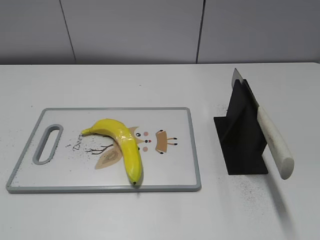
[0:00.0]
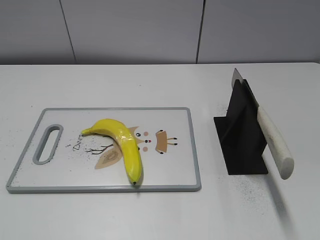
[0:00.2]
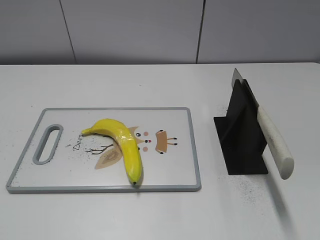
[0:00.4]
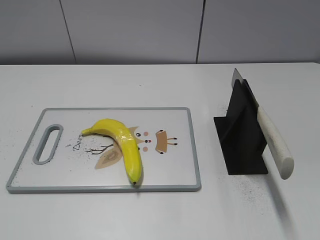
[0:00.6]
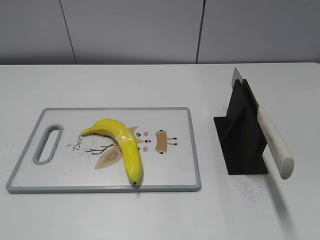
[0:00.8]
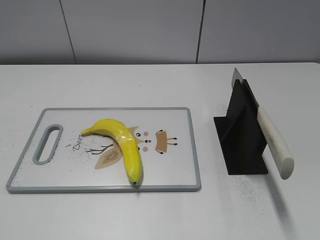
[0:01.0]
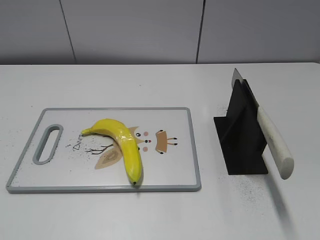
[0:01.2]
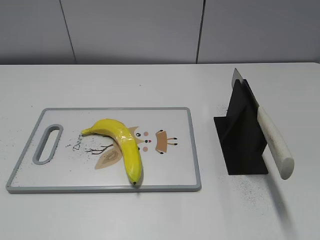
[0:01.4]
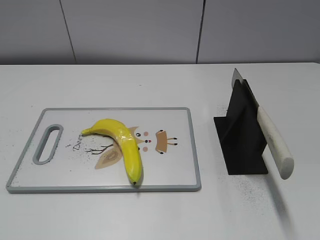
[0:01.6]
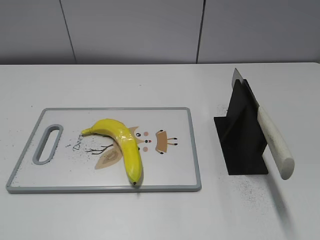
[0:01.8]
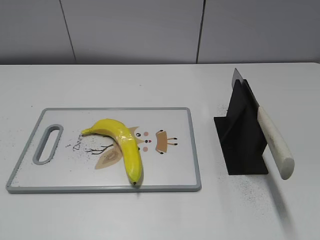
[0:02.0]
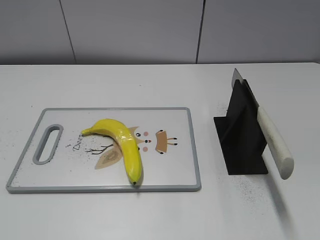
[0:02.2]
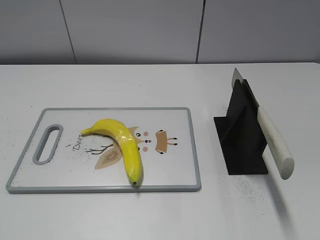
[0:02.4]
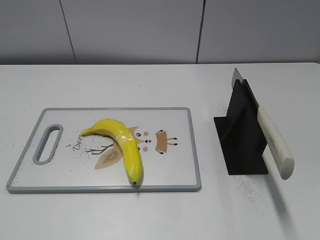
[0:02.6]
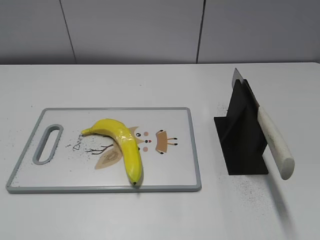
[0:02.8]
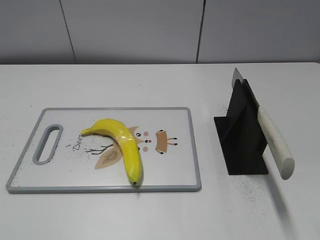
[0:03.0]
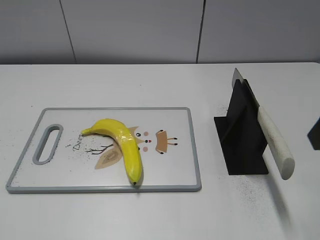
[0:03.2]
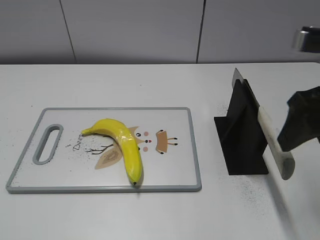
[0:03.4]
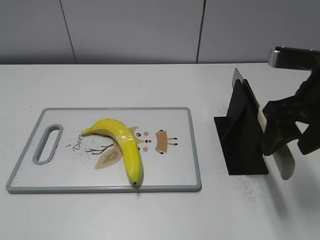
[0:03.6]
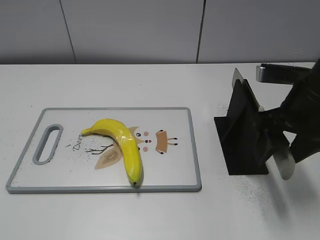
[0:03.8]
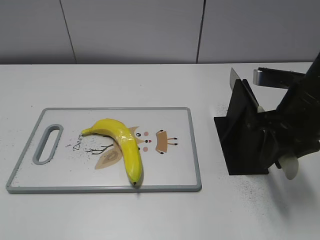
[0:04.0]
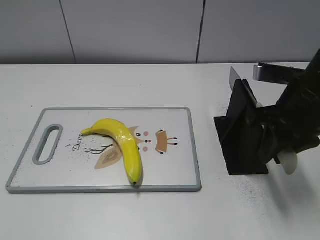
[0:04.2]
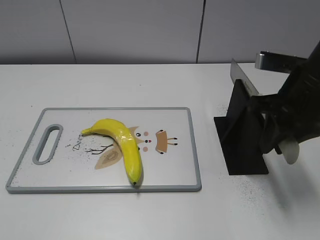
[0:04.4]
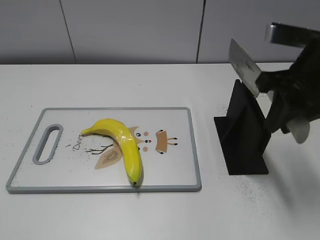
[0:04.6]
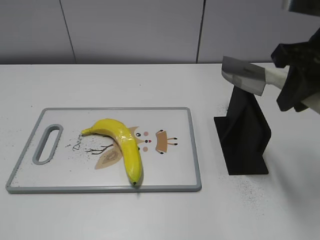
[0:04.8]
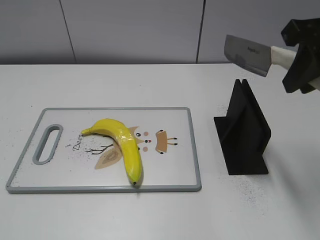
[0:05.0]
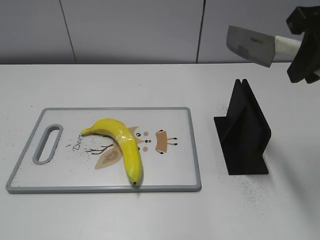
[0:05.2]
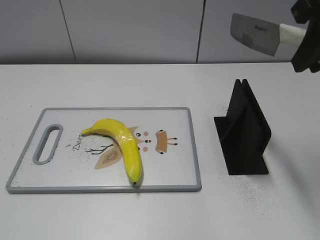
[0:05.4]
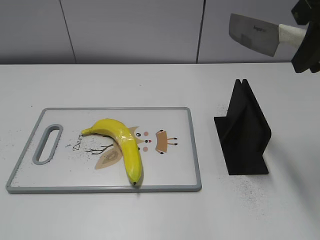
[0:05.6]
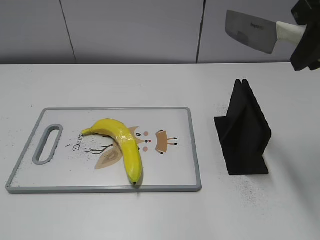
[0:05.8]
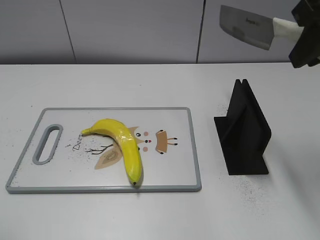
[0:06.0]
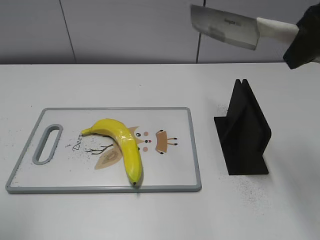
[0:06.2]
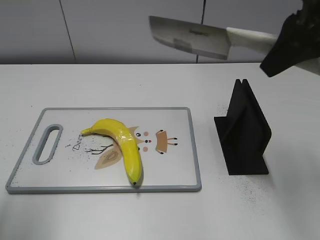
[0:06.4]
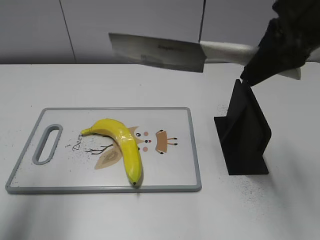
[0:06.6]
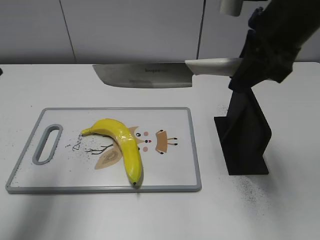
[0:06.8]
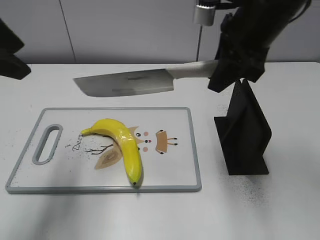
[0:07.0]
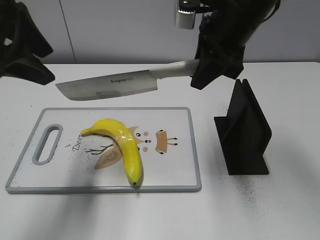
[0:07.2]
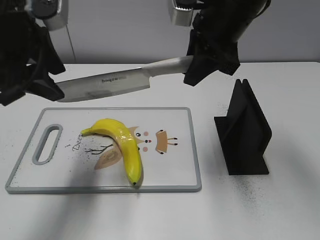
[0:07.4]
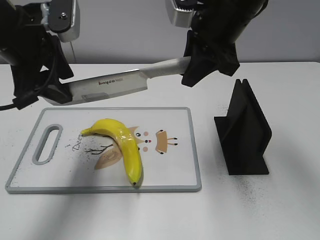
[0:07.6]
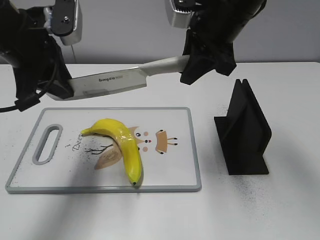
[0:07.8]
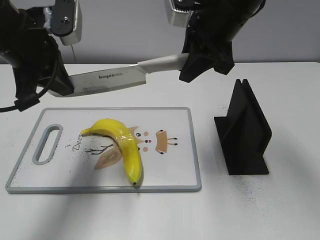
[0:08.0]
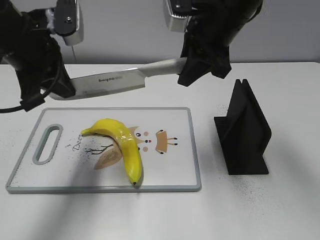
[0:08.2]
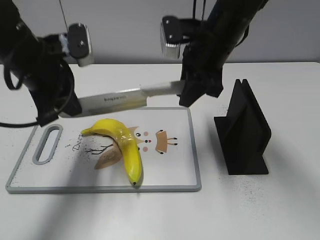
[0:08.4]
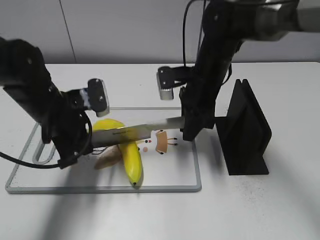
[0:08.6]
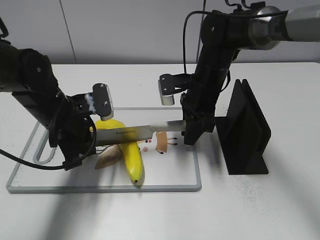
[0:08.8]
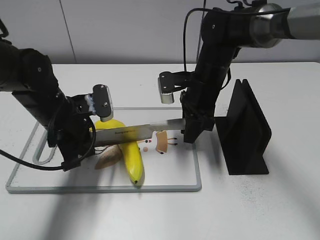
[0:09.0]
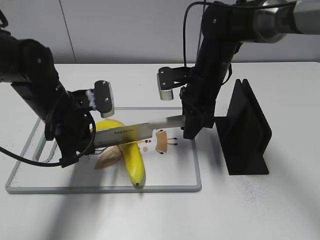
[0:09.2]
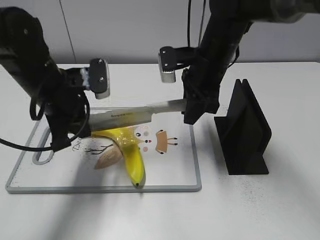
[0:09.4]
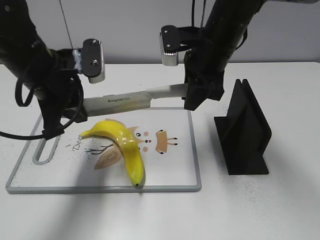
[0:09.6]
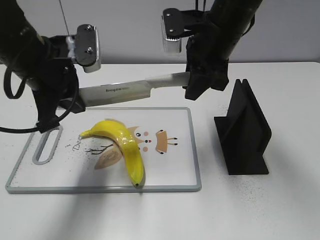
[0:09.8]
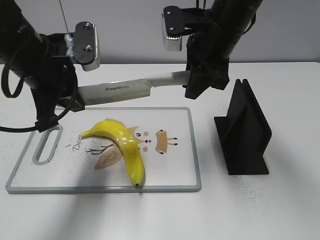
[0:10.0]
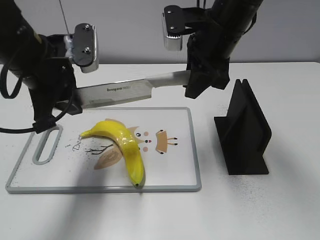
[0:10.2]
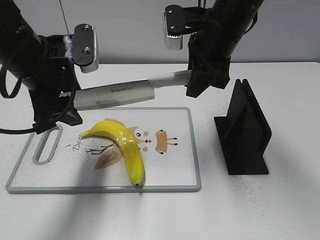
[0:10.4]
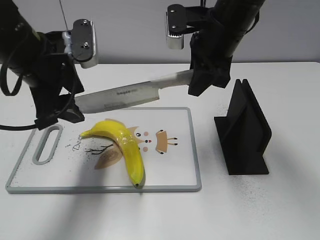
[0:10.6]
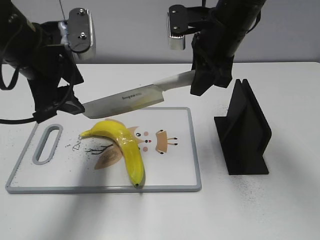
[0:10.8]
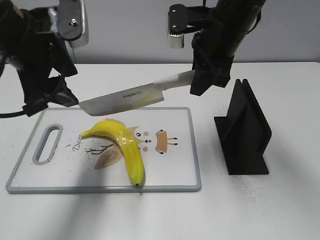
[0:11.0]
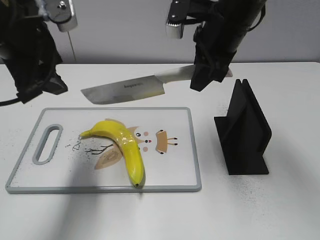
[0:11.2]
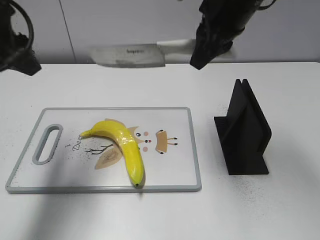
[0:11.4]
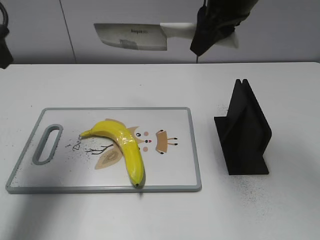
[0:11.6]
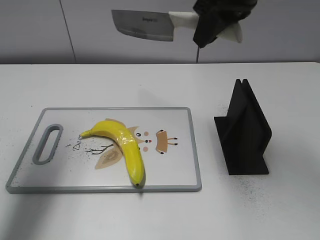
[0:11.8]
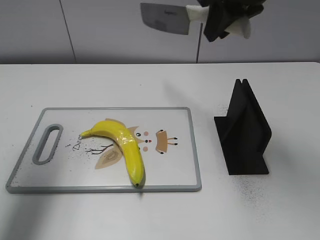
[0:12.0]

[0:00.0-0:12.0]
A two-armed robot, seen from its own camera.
Task of the whole recording: cut plastic banana.
Step, 0:00.0 to 0:05.0: Grab the knife handle with your right hand.
Step, 0:05.2 to 0:10.0: Lift the knife with your right hand.
Step, 0:10.4 to 0:11.2: Cut the banana with your right hand.
0:03.0 to 0:04.4: The right gripper travels forward, downward and to the left by approximately 15 cm, and closes up.
0:04.4 to 0:06.0: The right gripper goes about 15 cm upward.
0:06.0 to 0:07.6: The right gripper moves to the left, forward and downward, about 15 cm. Meanwhile the left gripper goes some 25 cm forward and to the right.
0:07.6 to 0:09.0: Both grippers travel together downward, some 15 cm. The left gripper closes its fingers.
0:09.0 to 0:10.4: The two grippers go roughly 10 cm upward. The left gripper opens up.
0:10.4 to 0:12.0: The right gripper moves upward, roughly 10 cm; the left gripper heads upward and to the left, covering about 15 cm.

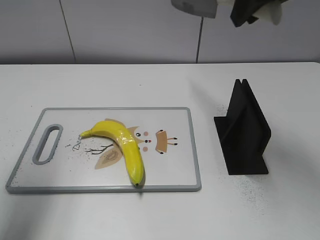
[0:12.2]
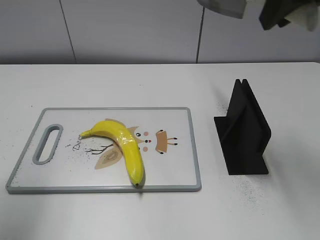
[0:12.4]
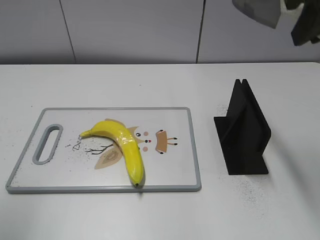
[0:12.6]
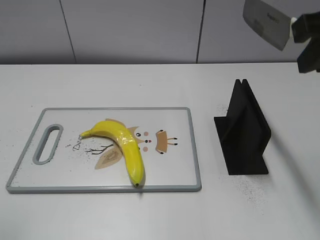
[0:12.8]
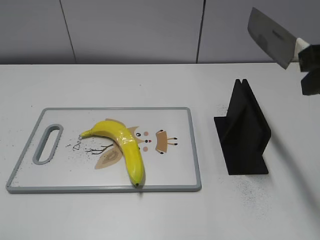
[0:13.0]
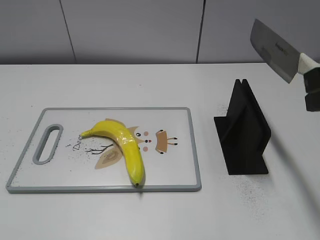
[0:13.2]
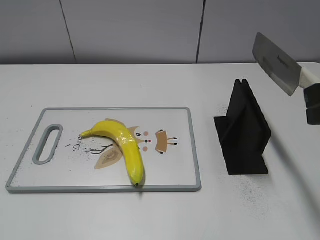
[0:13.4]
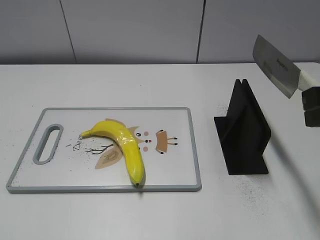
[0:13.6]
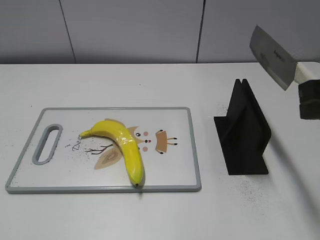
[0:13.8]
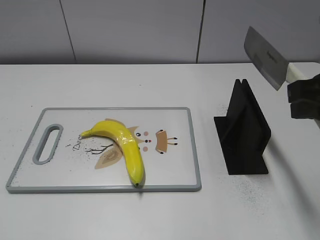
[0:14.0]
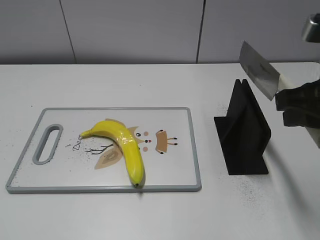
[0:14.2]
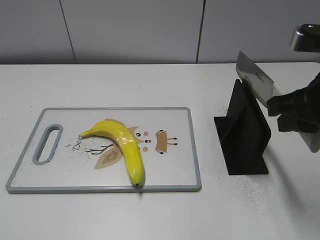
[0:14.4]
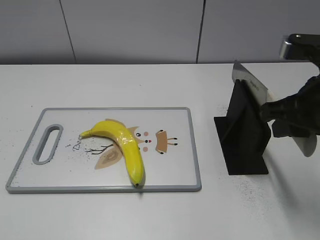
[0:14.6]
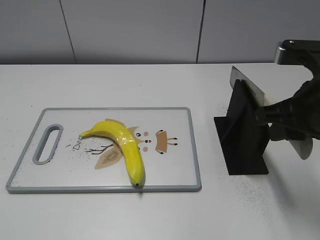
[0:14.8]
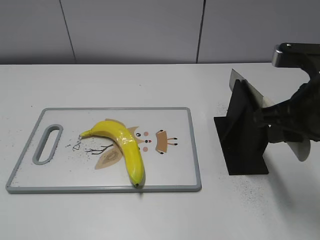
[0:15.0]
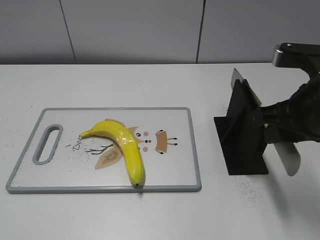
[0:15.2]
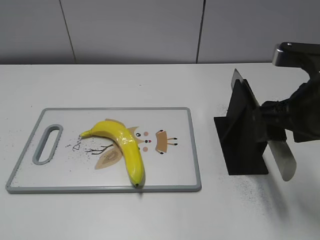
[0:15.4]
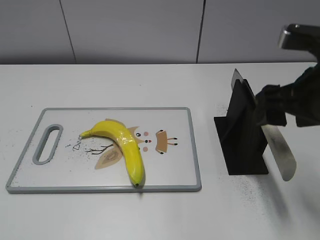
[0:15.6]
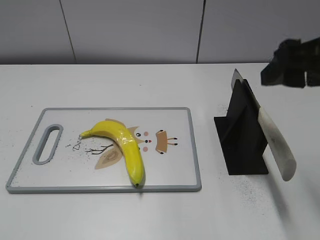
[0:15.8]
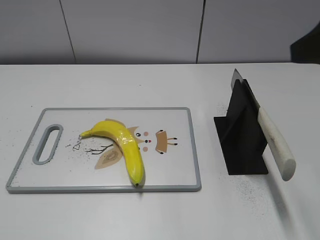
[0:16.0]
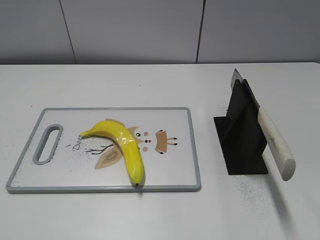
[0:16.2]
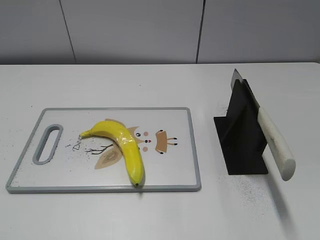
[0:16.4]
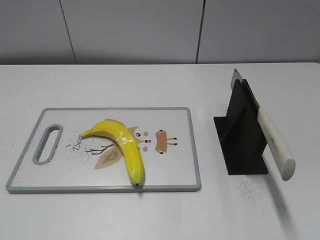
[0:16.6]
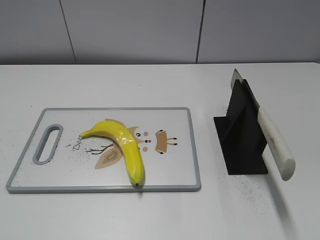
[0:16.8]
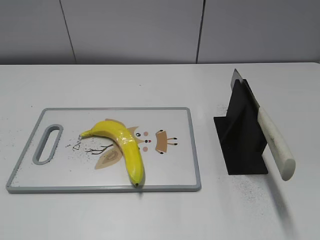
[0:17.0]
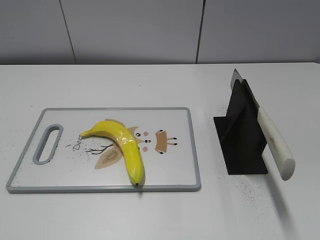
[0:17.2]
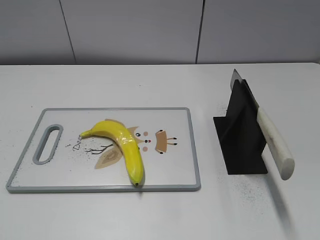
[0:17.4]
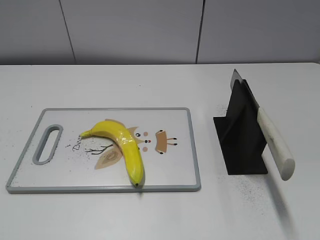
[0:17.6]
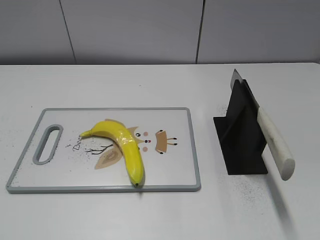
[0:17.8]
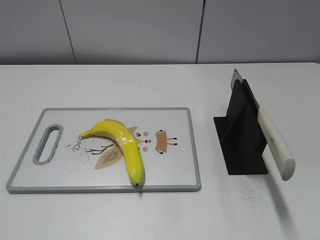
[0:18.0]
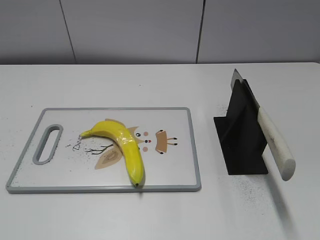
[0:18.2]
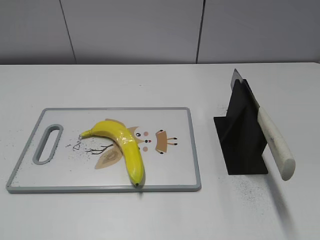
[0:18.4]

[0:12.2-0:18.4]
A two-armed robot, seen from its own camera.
Task of the whole recording: cut plastic banana.
Step, 0:12.8 to 0:18.4: Place the knife on the storage rack with your right hand.
0:12.2 to 0:13.8: The right gripper travels backward, downward and to the right by approximately 20 cm; the left gripper heads backward, covering roughly 25 cm.
0:13.8 to 0:15.4: The right gripper goes roughly 5 cm downward, and opens.
0:15.4 to 0:16.8: The right gripper heads backward and to the right, covering about 20 cm.

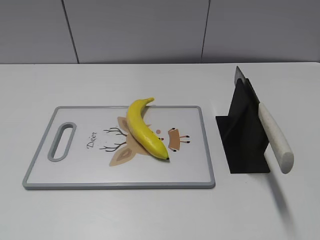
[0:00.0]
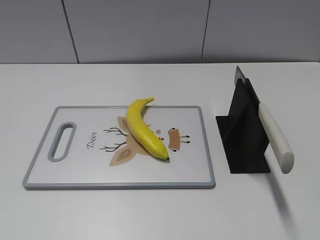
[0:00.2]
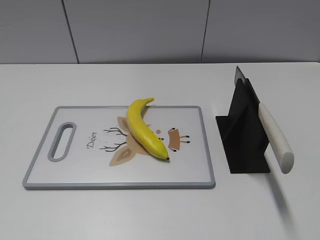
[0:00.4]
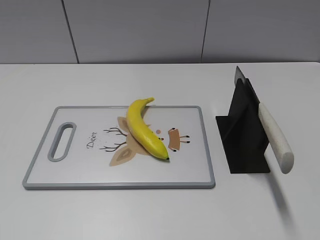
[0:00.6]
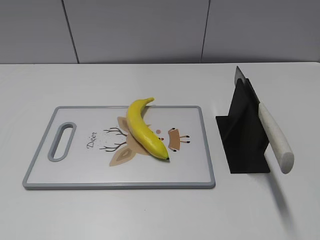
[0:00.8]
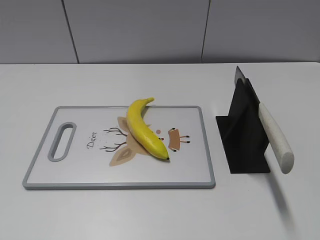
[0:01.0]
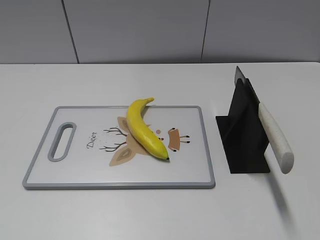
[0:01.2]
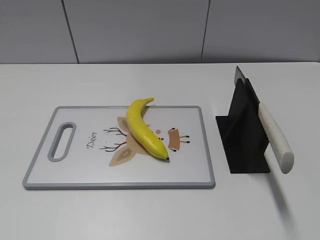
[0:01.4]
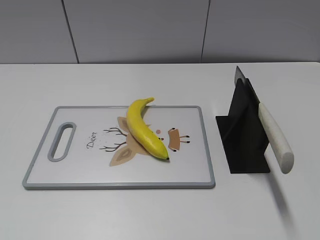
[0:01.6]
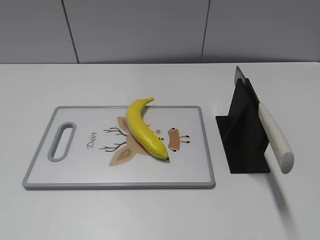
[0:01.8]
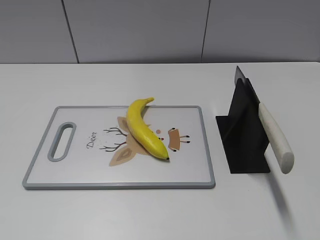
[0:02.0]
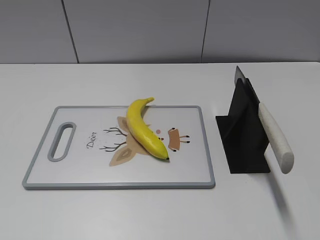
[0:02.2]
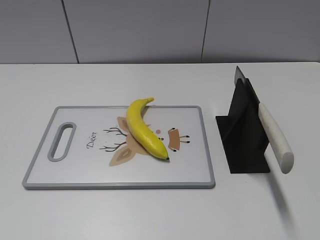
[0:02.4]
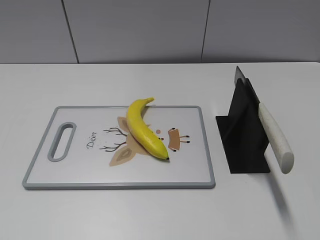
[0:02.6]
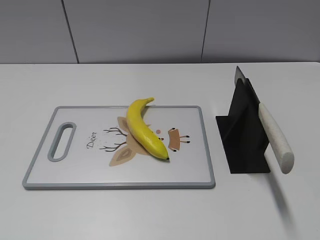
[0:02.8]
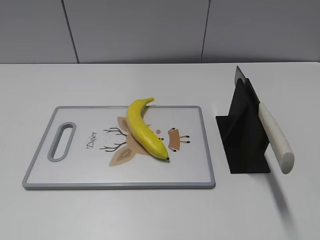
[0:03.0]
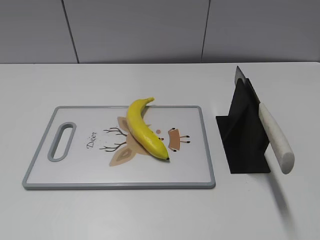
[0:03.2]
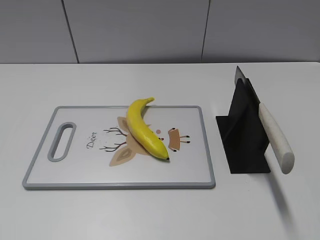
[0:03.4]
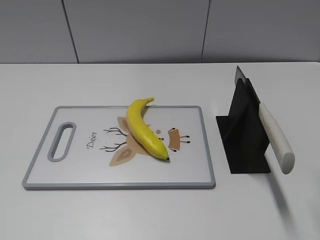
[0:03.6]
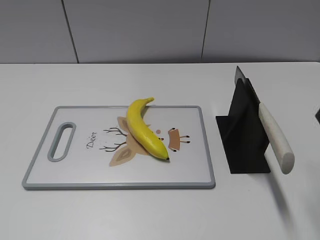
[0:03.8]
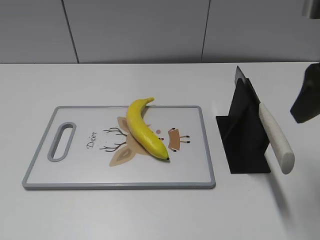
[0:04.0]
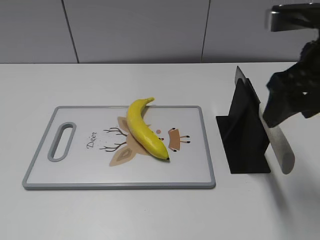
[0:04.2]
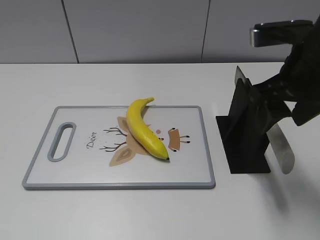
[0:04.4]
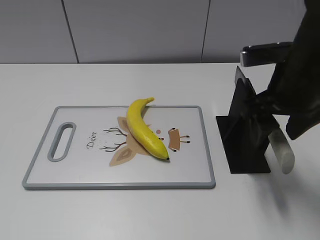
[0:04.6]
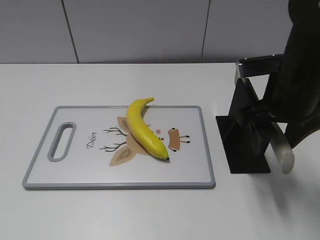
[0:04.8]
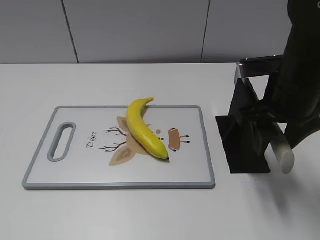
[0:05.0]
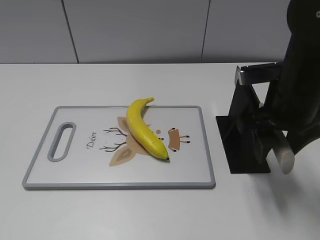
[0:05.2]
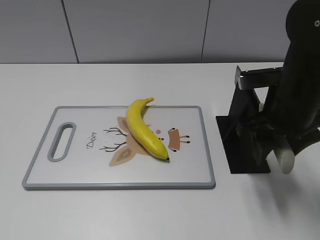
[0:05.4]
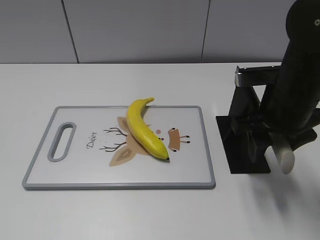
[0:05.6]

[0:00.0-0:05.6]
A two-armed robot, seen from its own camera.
Task of the whole recording: cut plastic banana.
0:02.8 to 0:04.2: The right gripper moves forward and to the left, approximately 20 cm.
0:04.2 to 0:05.6: The right gripper moves downward, some 10 cm.
